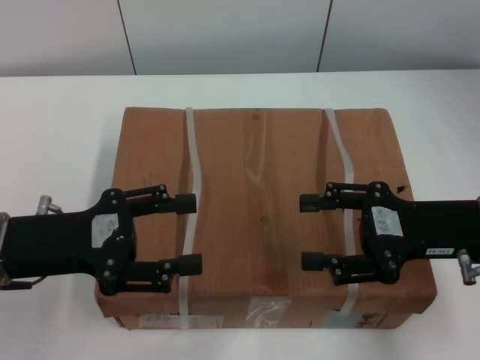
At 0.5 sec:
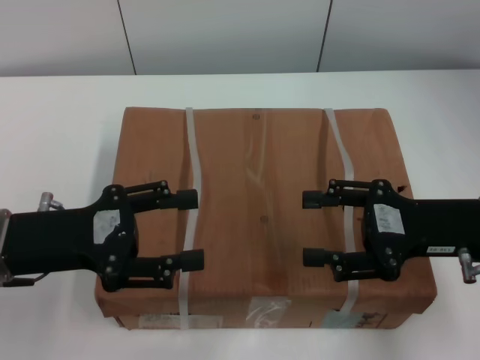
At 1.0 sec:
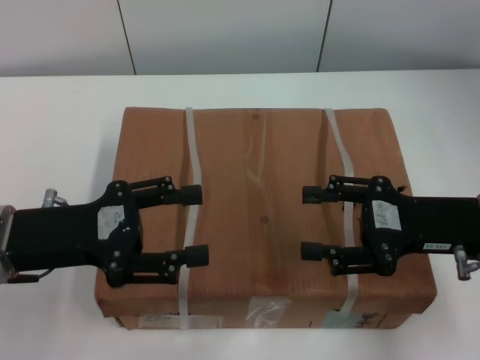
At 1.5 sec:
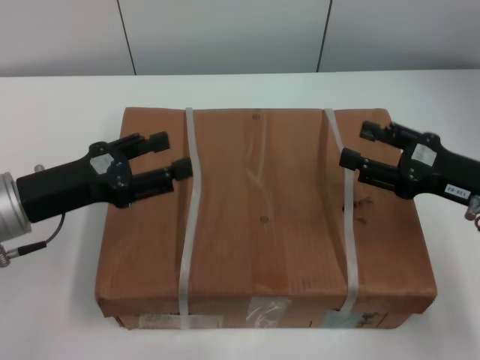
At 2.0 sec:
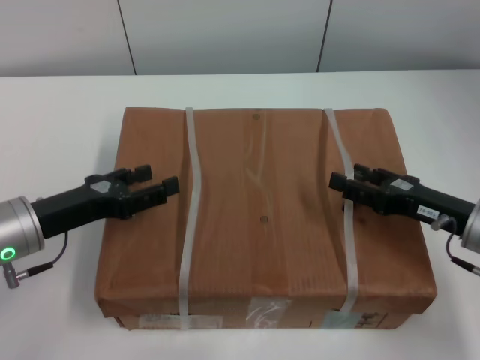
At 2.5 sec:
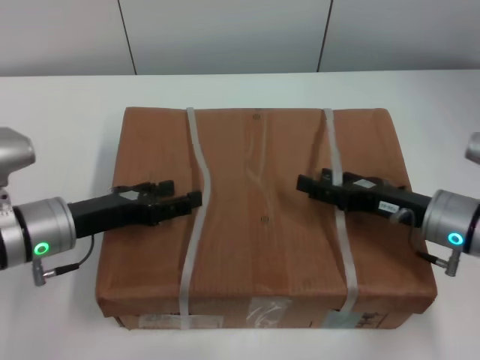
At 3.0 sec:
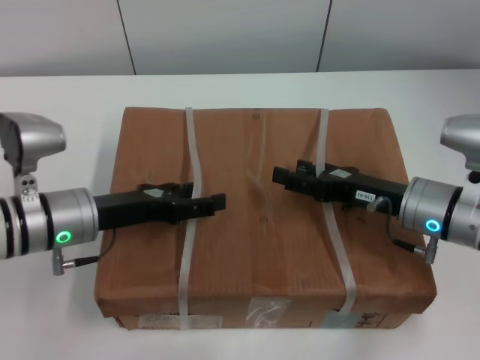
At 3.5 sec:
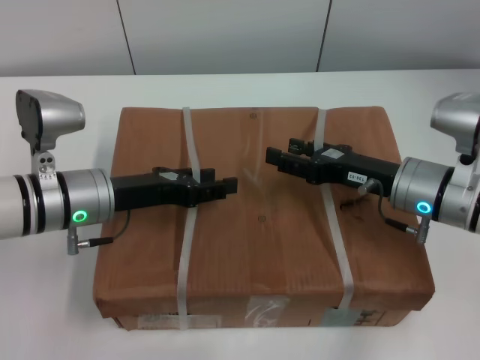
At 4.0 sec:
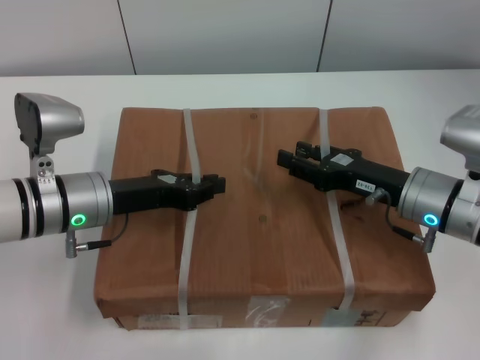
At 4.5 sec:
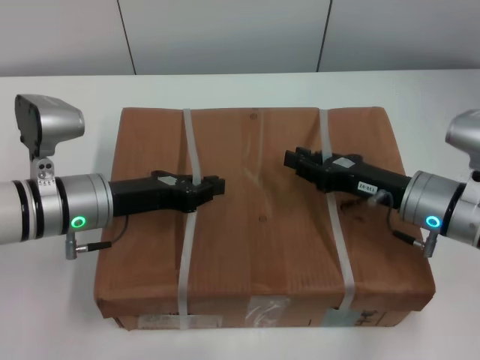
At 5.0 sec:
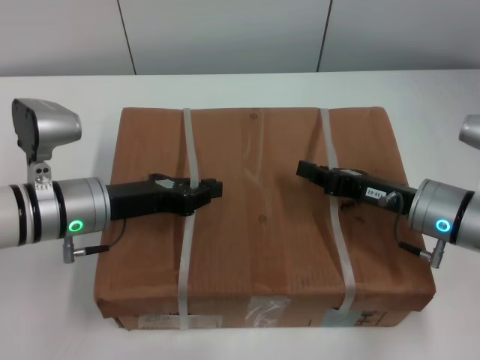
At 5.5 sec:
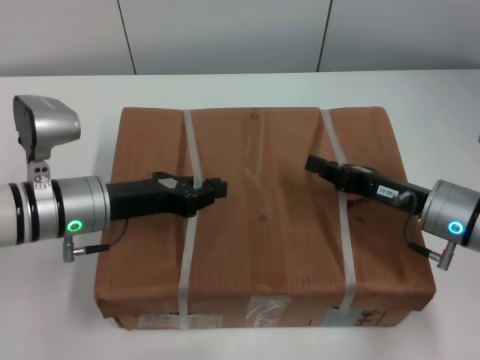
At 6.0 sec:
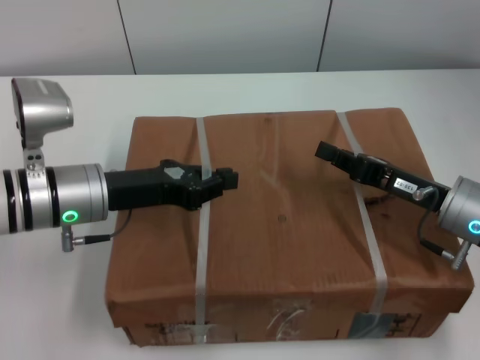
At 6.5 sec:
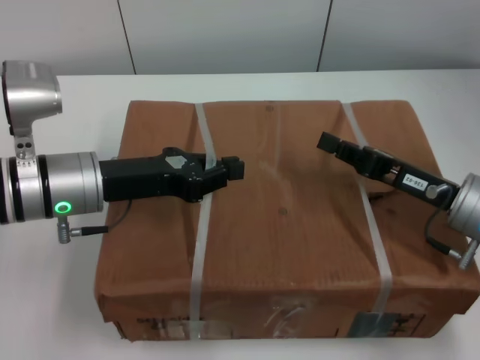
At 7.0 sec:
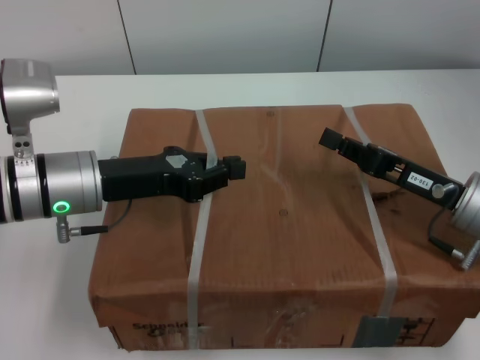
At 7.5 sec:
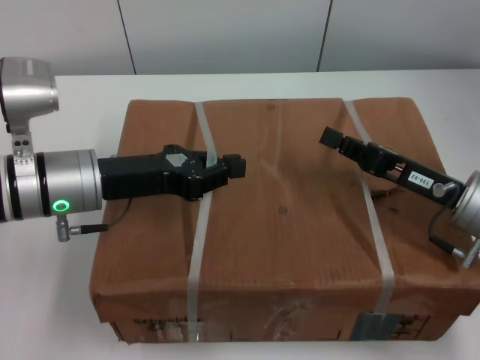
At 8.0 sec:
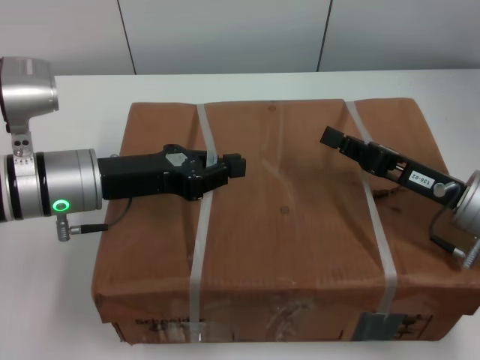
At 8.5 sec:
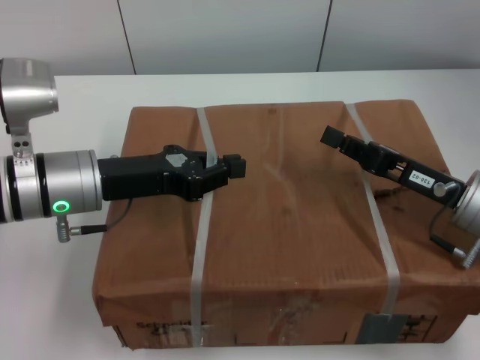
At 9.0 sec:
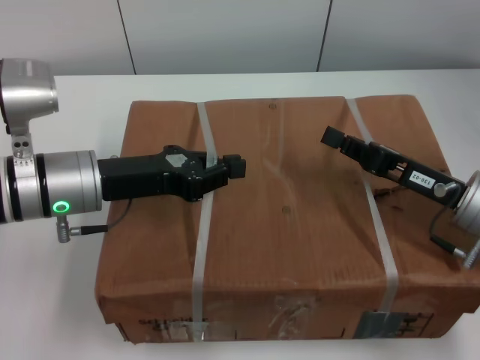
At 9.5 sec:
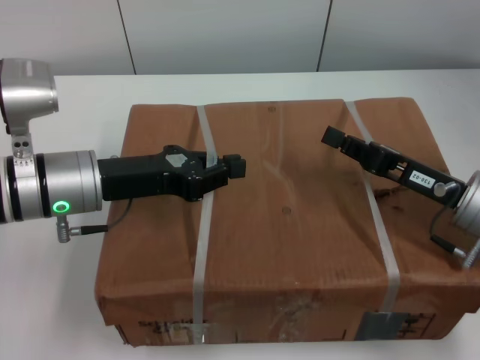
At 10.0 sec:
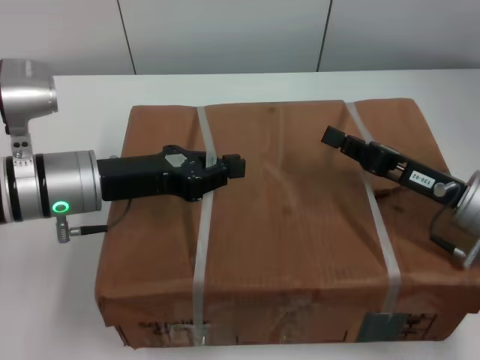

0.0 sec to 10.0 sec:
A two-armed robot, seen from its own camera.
Task of the whole recording: pick up the box from the table with both arms.
Step, 0.0 sec to 5.0 sec: Grasp the bandage with left gripper.
Step, 0.0 sec to 5.0 sec: Grasp the bandage with right gripper.
Step, 5.5 sec to 6.5 sec: Lift the box with left gripper.
Step, 5.5 sec to 6.5 sec: Lift the box with right gripper.
0.0 sec to 2.0 sec: Both grippers travel together downward, approximately 5 cm.
2.0 sec to 4.0 sec: The left gripper shifts about 5 cm to the right, and closes, while the right gripper shifts about 5 cm to the left.
4.0 sec to 6.0 sec: The left gripper closes up, while the right gripper closes its fingers.
8.0 sec to 10.0 sec: Both grippers stay put.
